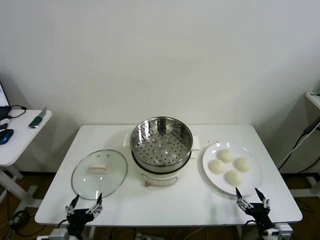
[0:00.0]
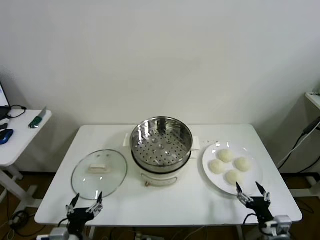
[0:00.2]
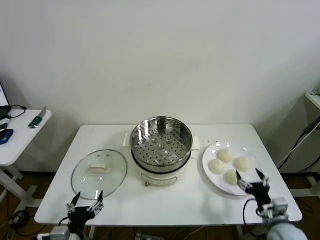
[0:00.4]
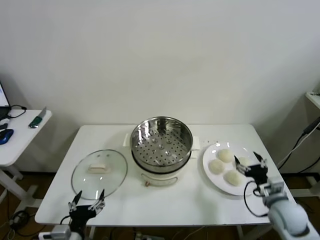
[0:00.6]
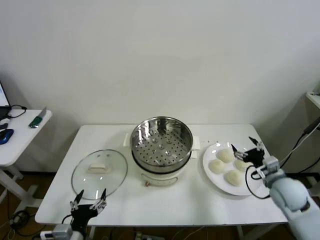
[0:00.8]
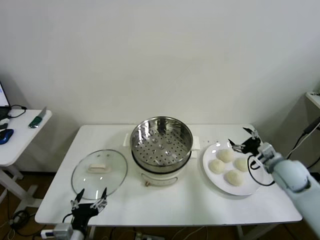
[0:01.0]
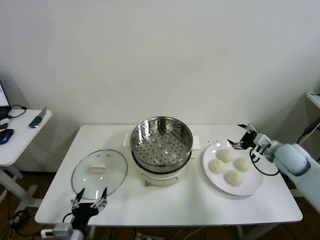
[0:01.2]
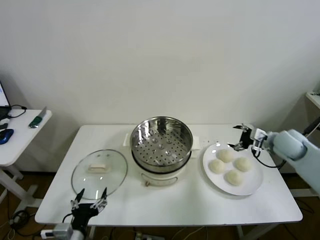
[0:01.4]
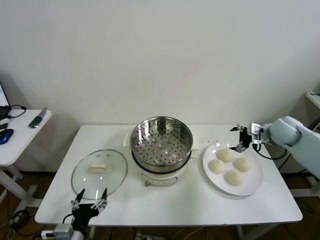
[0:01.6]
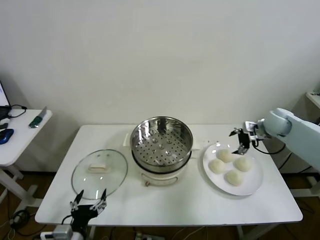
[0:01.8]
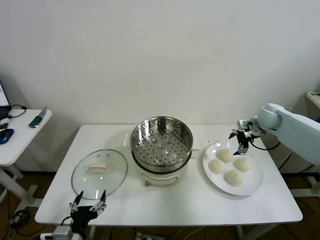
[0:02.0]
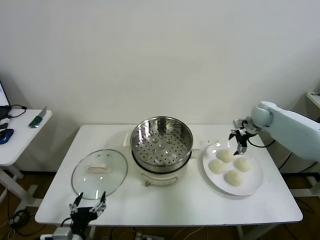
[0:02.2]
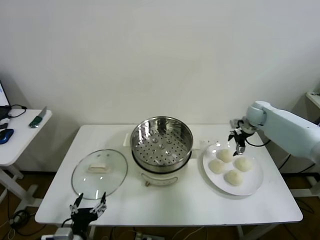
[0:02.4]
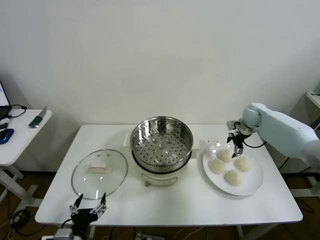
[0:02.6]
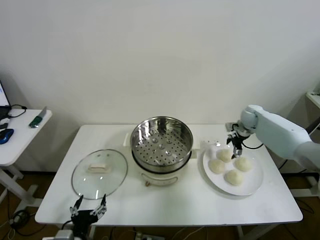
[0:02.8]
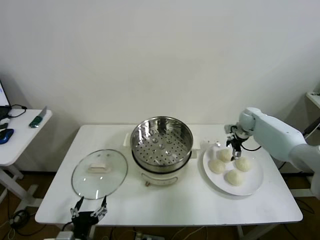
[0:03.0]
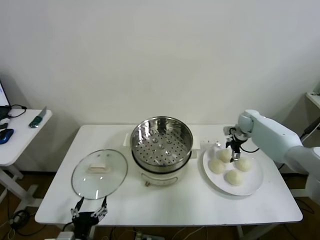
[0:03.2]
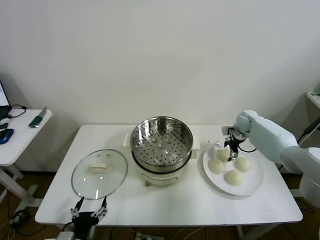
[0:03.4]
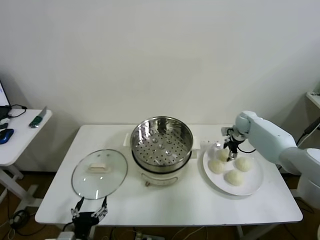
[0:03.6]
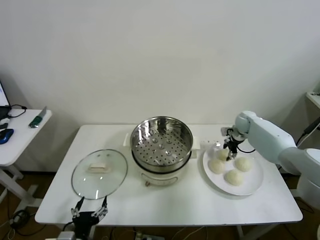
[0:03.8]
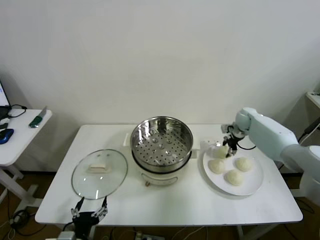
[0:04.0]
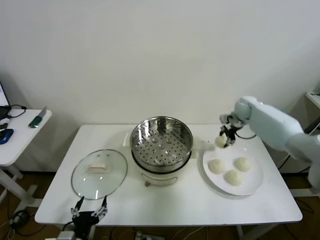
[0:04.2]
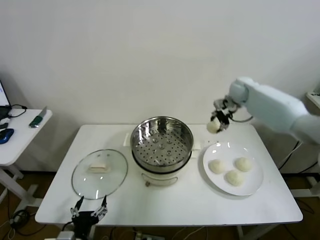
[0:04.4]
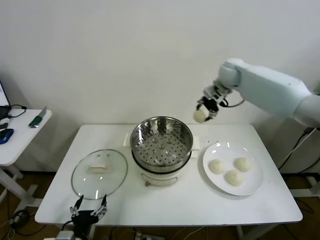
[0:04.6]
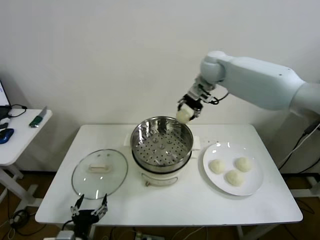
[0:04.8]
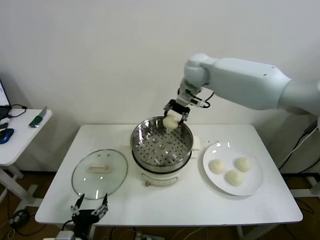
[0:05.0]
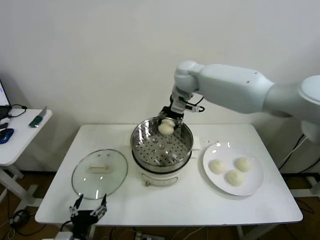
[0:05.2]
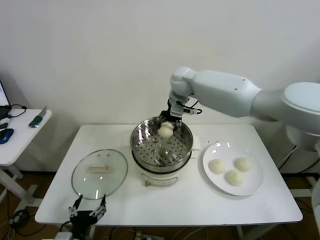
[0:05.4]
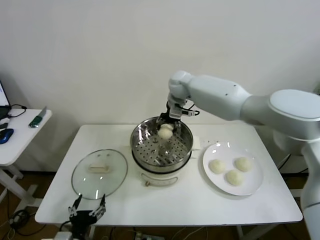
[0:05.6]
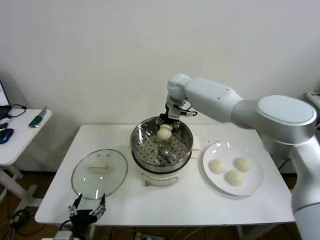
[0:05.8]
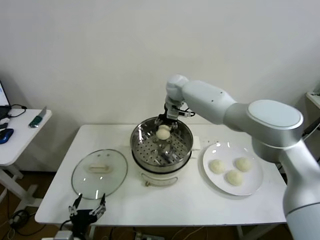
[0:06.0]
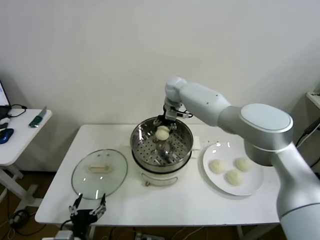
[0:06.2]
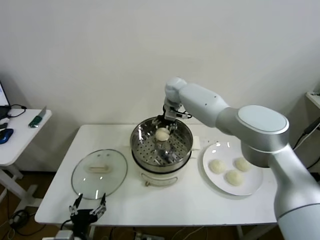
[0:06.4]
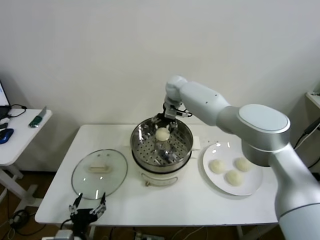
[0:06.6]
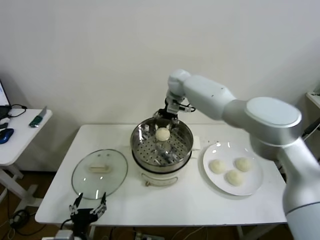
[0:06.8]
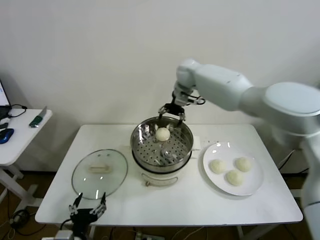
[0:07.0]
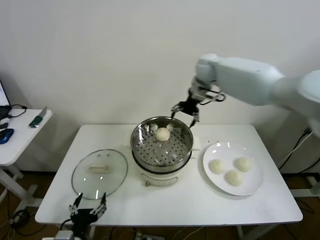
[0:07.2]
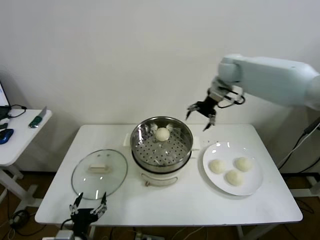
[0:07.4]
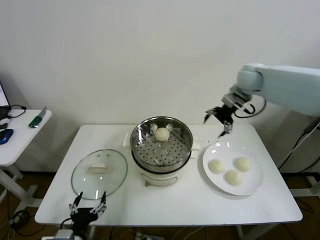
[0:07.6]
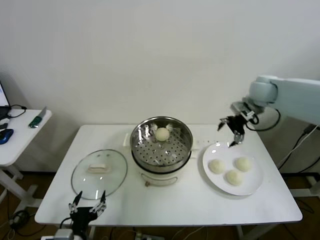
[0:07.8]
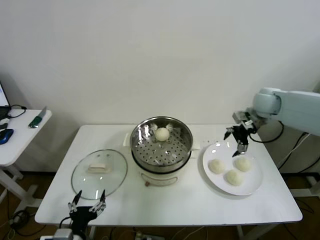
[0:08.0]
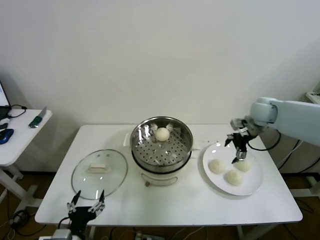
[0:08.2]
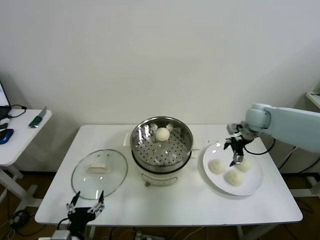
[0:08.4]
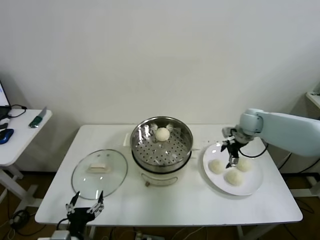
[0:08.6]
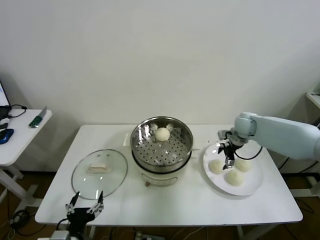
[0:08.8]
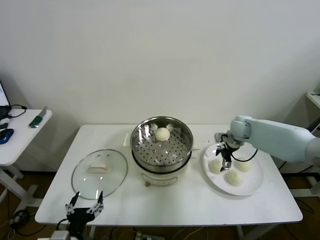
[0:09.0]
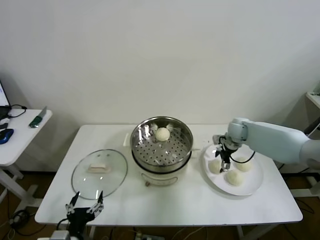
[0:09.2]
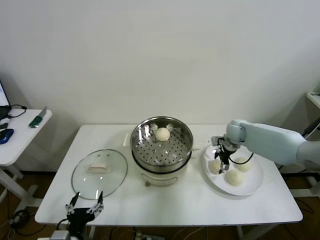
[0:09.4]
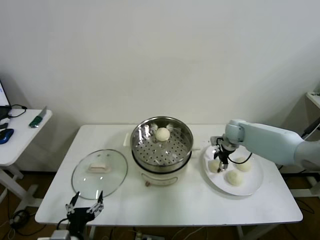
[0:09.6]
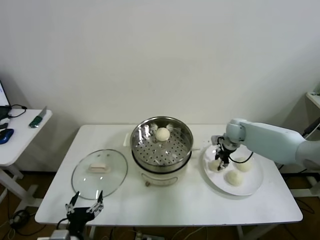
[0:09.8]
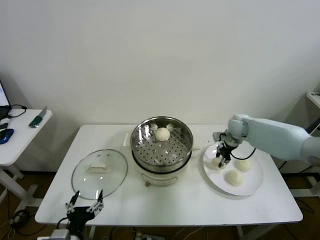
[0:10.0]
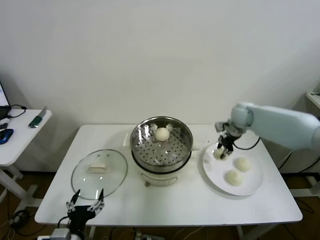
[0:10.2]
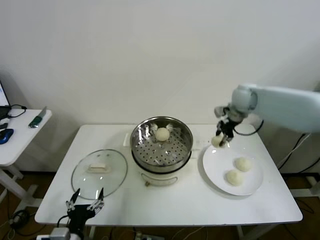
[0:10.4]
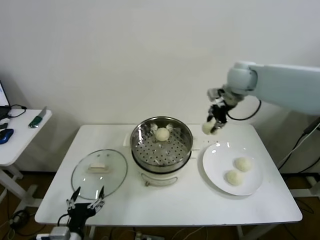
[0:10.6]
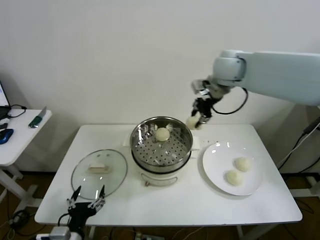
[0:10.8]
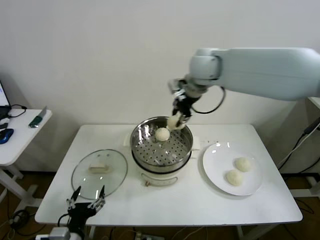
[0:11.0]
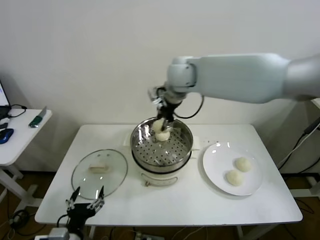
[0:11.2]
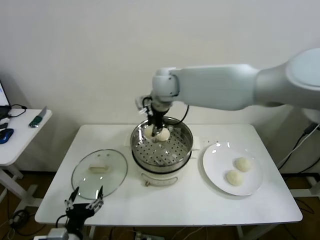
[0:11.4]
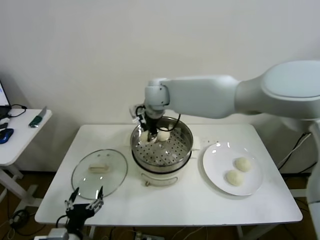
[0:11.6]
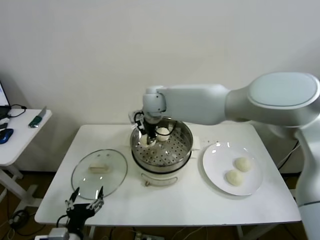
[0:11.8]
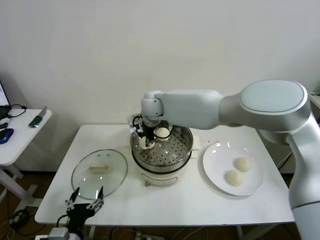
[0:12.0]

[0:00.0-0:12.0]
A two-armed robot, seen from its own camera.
Step, 0.0 to 3.6 s: Grasp the baozi in the plate with right gripper.
Step, 3.8 to 6.2 s: Place the baozi on the steamer with right gripper.
Step, 6.6 to 9.4 s: Grasp the baozi in the plate with right gripper.
1.6 to 3.0 s: The right gripper travels forward and downward by approximately 15 cm.
3.0 to 4.4 s: The right gripper moves upward and to the left, some 15 cm, and closes its fingers.
4.4 to 6.0 s: The right gripper travels to the left by some 25 cm.
6.0 to 7.6 s: The right gripper shifts approximately 25 cm to the right, and opens up.
7.6 to 9.0 s: The right gripper is displaced downward by some 20 cm.
9.0 to 10.4 s: The right gripper shifts approximately 15 cm upward, and closes up.
10.4 to 12.0 s: The right gripper is displaced to the left by some 30 cm.

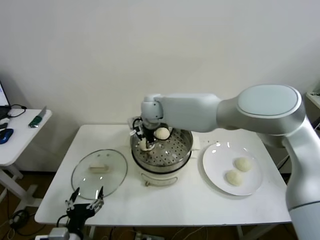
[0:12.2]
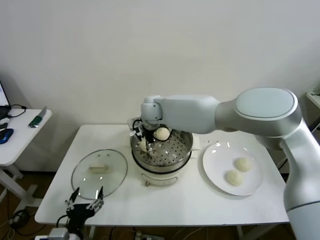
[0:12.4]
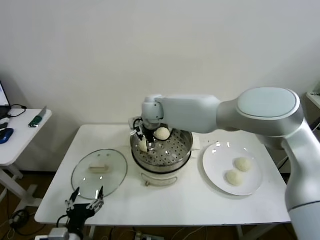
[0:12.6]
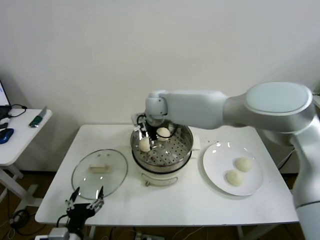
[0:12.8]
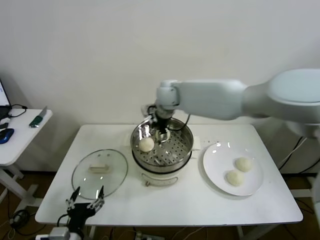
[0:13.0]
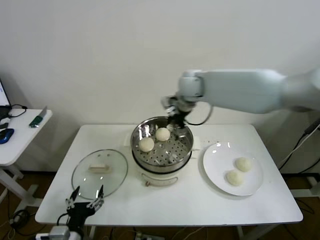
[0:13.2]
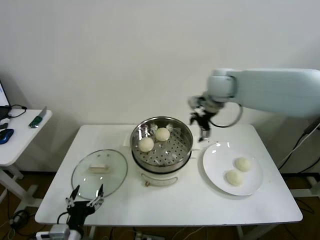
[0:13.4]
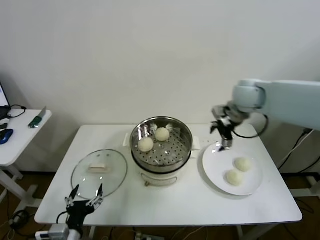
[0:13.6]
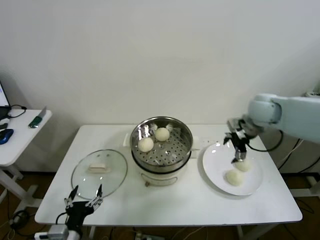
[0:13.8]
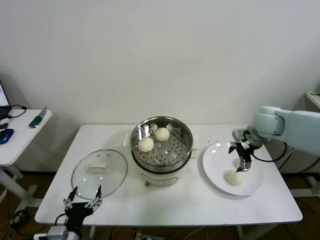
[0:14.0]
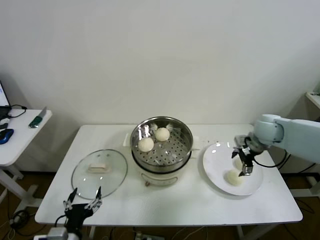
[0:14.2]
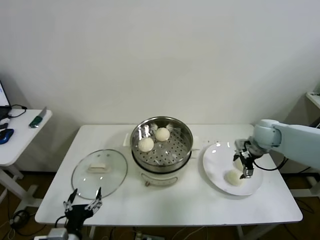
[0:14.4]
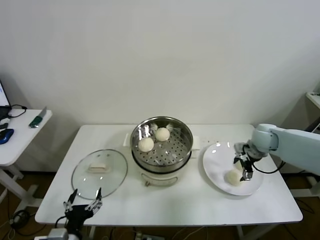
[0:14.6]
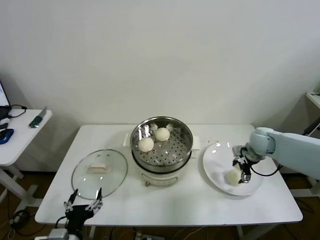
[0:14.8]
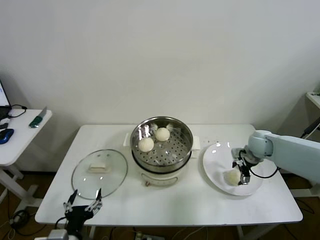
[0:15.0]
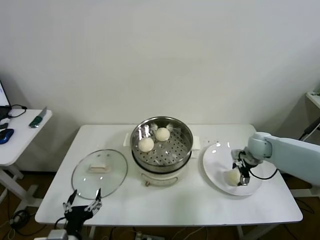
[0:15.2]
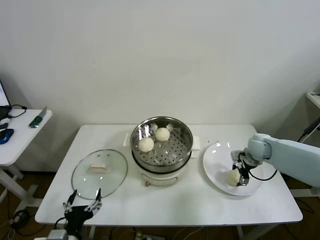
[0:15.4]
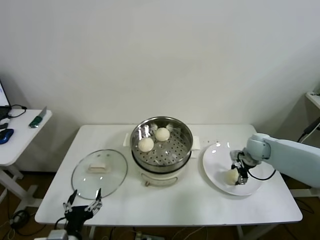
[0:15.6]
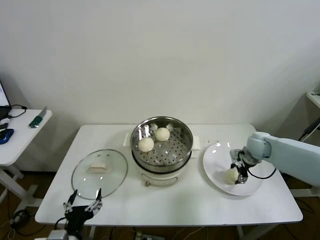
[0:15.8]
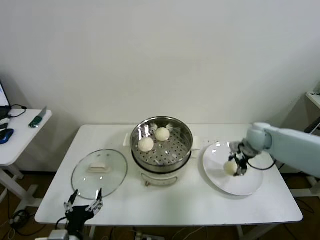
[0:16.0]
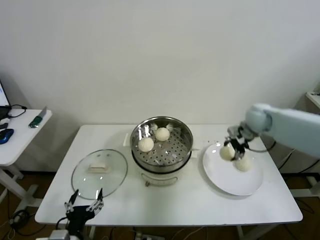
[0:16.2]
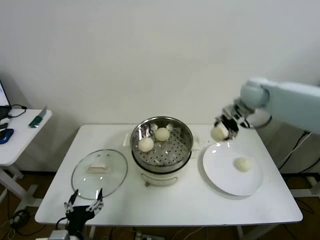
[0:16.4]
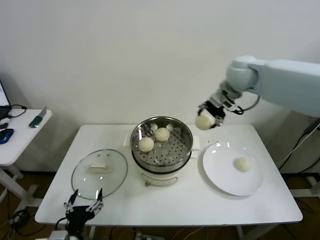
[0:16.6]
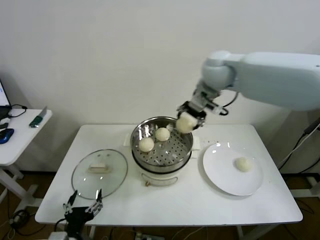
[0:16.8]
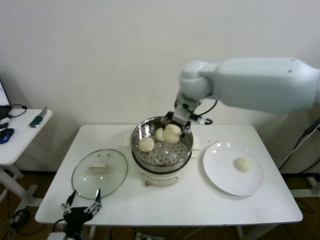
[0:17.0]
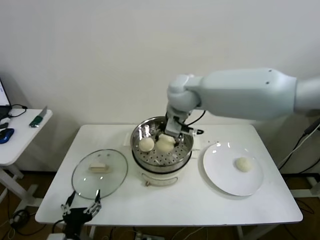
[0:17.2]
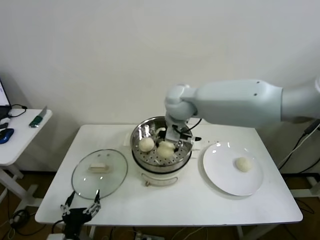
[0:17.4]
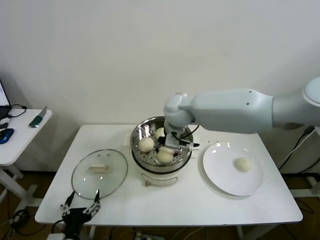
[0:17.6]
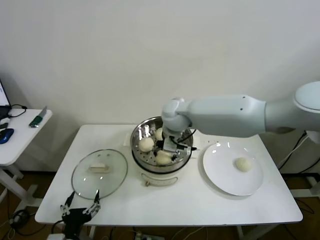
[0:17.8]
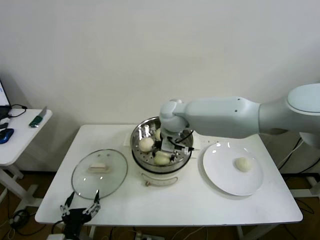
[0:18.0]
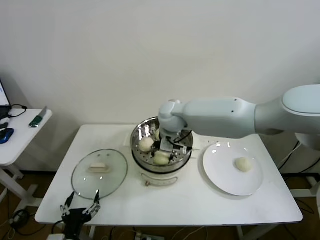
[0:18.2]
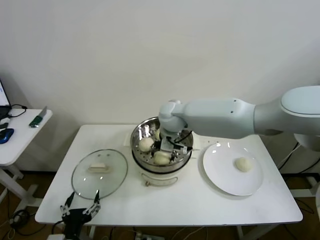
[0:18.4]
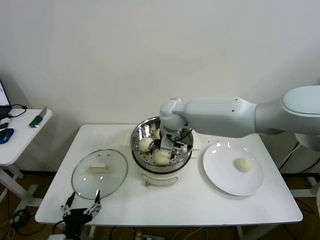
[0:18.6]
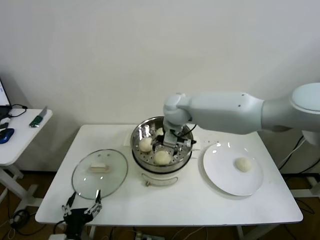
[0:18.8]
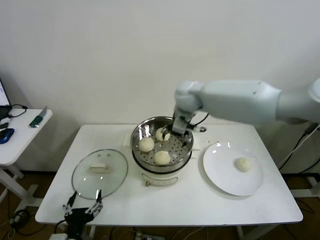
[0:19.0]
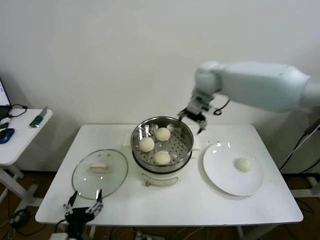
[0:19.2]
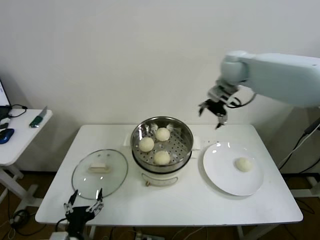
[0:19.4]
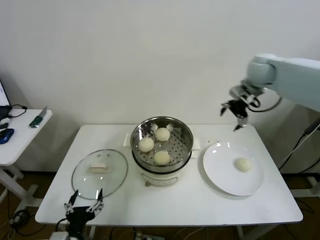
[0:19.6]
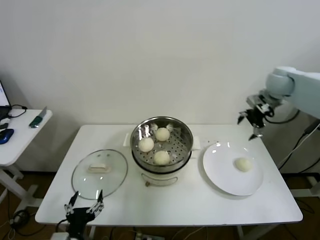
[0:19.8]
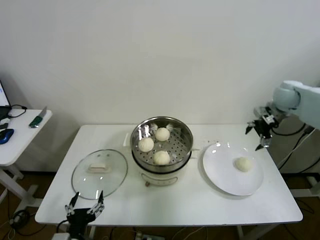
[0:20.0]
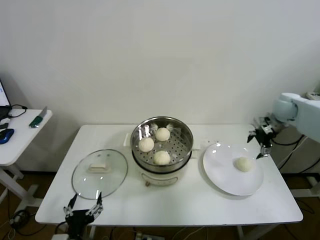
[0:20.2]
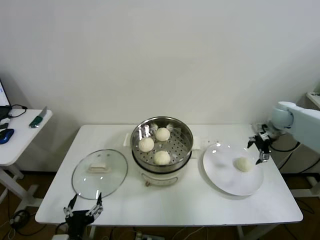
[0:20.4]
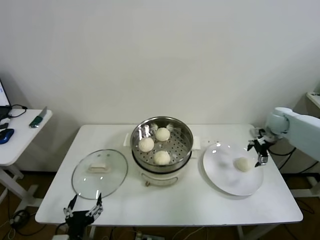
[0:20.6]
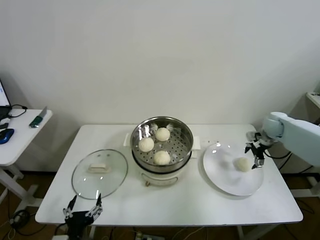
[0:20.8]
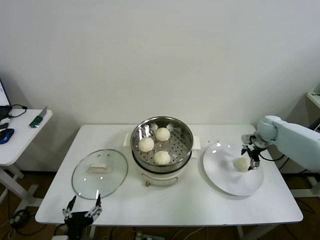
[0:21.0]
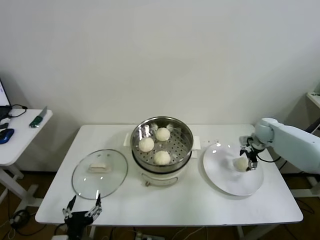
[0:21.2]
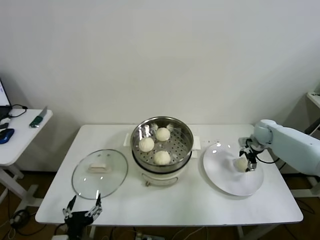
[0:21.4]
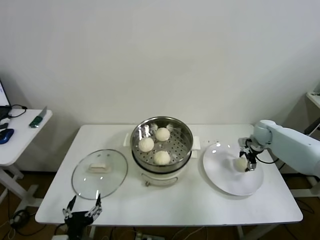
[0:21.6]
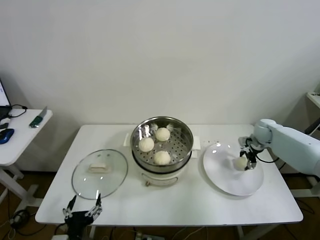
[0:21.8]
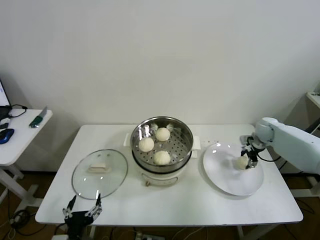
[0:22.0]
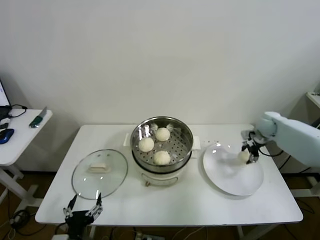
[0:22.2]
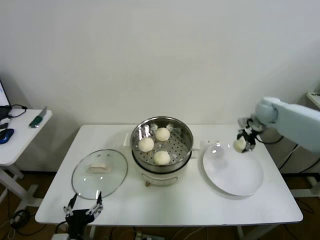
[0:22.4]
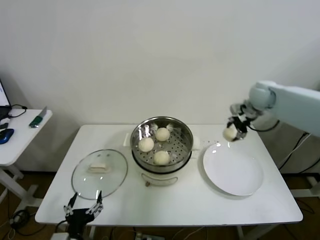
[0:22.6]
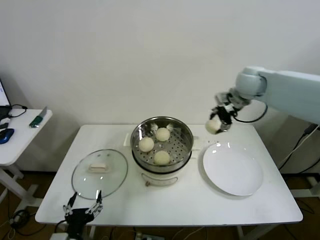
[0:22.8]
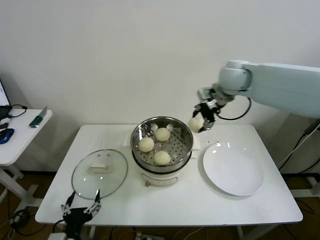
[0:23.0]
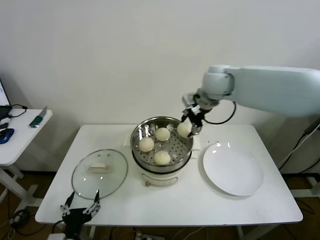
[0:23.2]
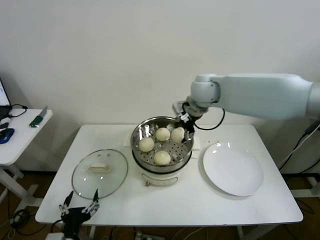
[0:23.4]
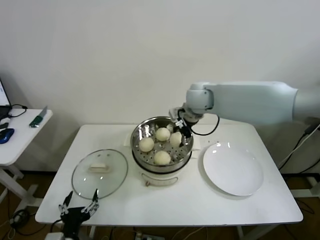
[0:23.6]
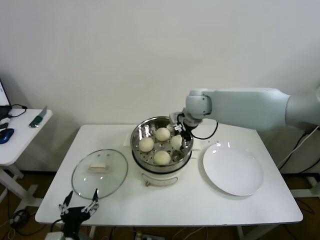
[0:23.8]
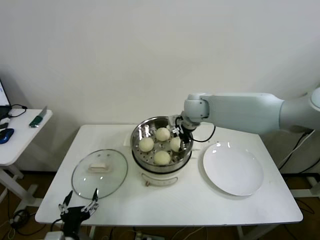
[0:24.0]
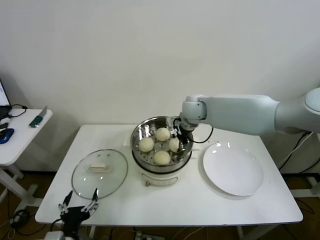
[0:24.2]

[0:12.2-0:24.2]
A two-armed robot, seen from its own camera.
Step, 12.6 to 15.6 s: Grasp the baozi in the plate with right gripper.
Step, 15.8 to 18.4 s: Place the baozi on the steamer with right gripper.
Step, 18.6 to 21.6 s: Grasp the baozi in the plate with right gripper.
12.2 to 13.8 s: The right gripper moves to the right, some 35 cm, and opens its fingers.
13.8 to 15.2 s: The right gripper shifts about 20 cm downward.
15.2 to 16.6 s: The right gripper travels upward and to the left by about 30 cm.
16.6 to 18.2 s: The right gripper is displaced to the left and downward by roughly 25 cm.
18.2 to 19.8 s: The right gripper goes approximately 35 cm to the right, and opens up.
19.8 to 21.2 s: The right gripper is displaced downward by some 20 cm.
21.2 to 22.6 s: The right gripper heads upward and to the left, covering about 20 cm, and closes up.
22.6 to 24.2 s: The right gripper travels to the left by roughly 25 cm.
